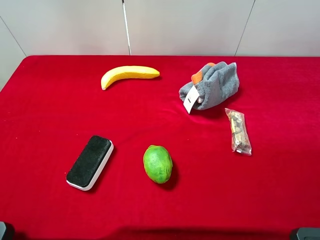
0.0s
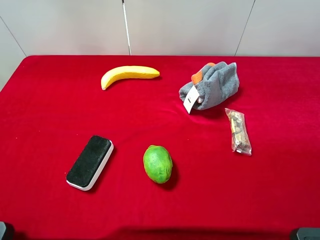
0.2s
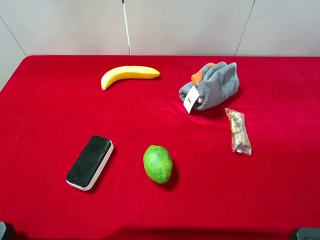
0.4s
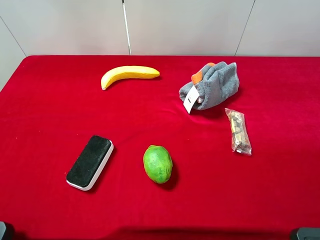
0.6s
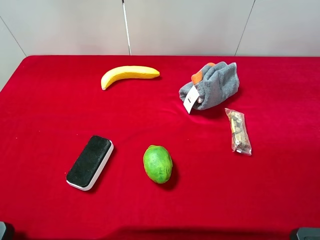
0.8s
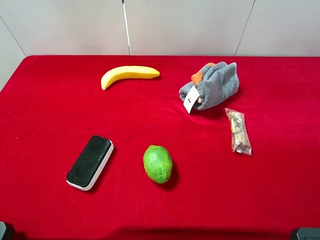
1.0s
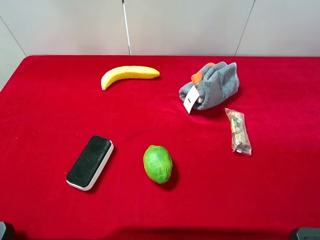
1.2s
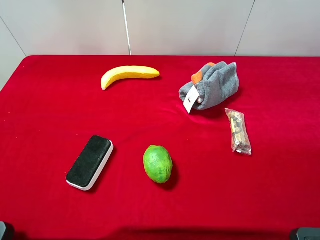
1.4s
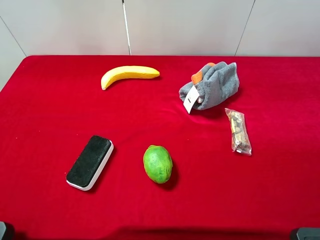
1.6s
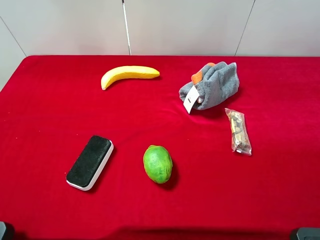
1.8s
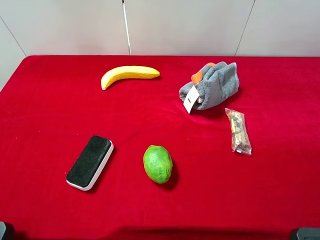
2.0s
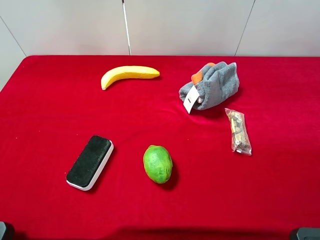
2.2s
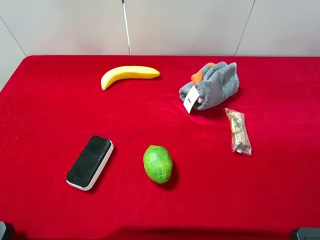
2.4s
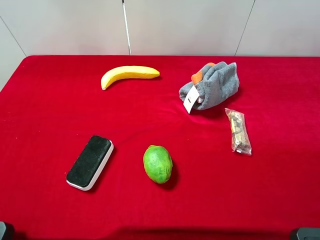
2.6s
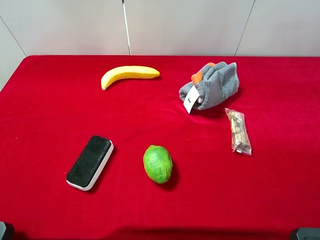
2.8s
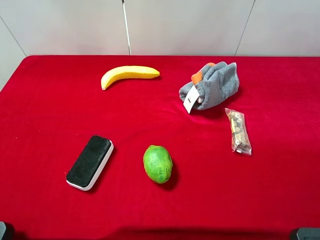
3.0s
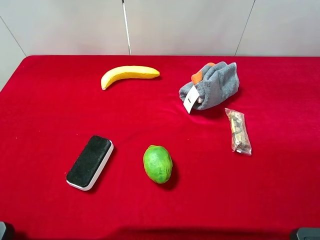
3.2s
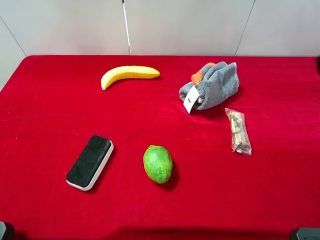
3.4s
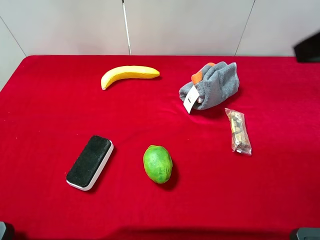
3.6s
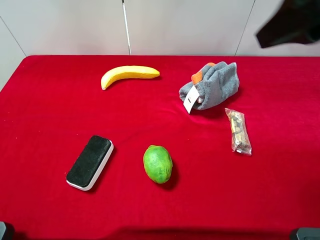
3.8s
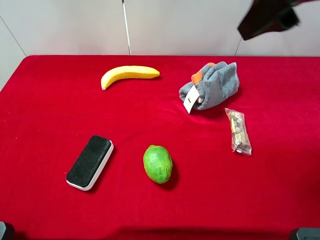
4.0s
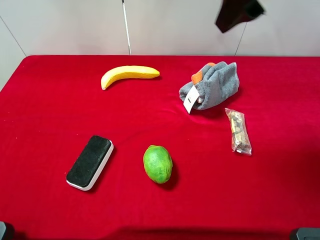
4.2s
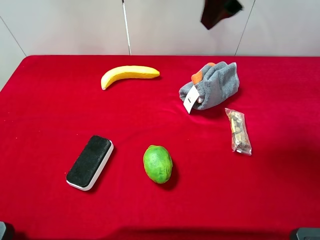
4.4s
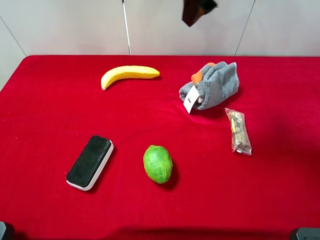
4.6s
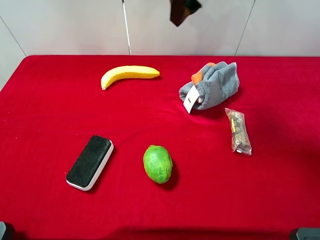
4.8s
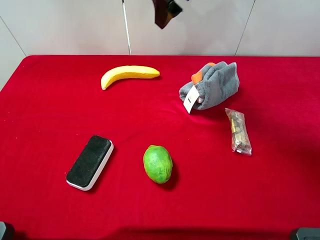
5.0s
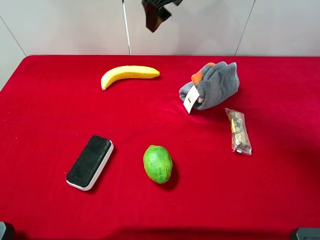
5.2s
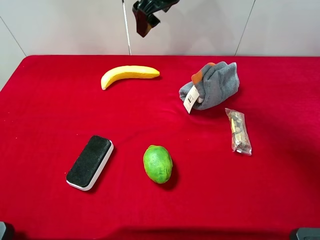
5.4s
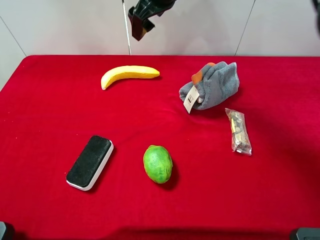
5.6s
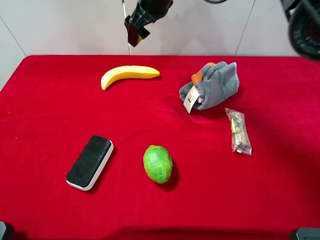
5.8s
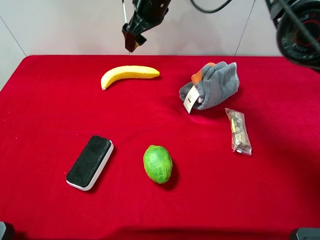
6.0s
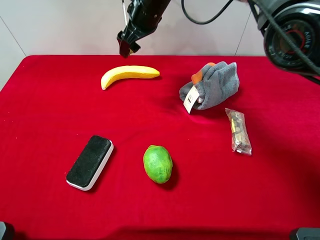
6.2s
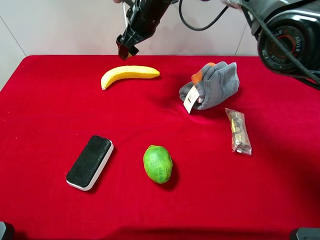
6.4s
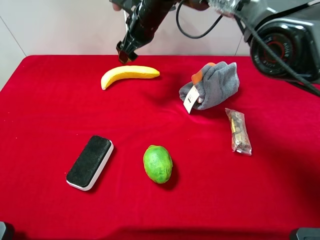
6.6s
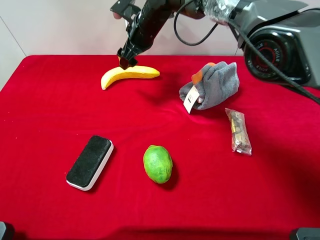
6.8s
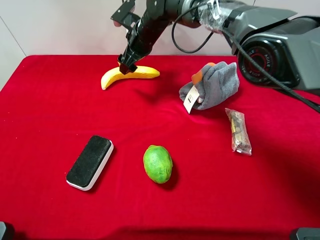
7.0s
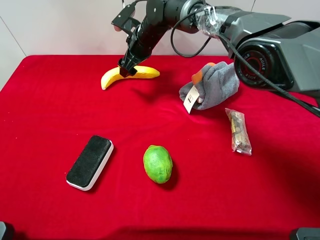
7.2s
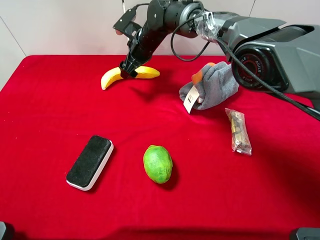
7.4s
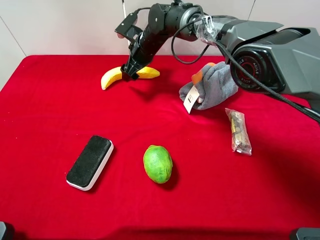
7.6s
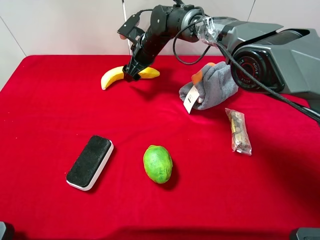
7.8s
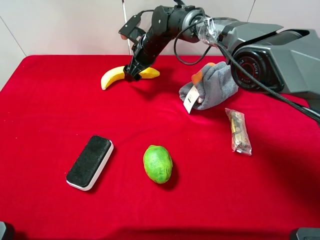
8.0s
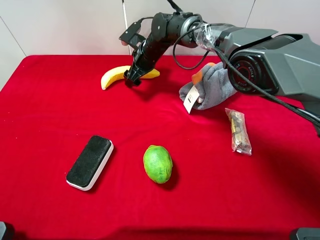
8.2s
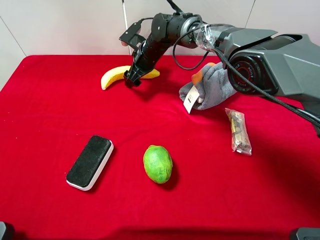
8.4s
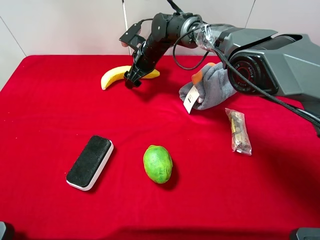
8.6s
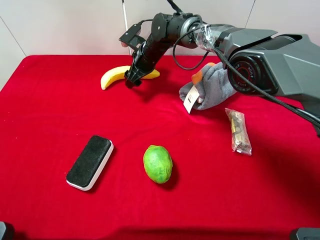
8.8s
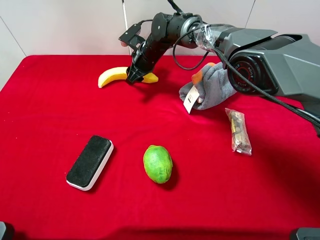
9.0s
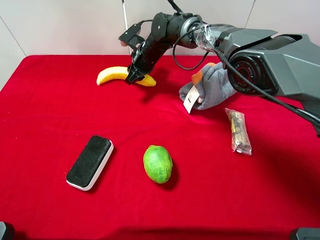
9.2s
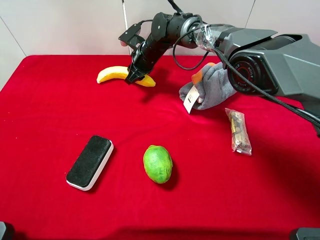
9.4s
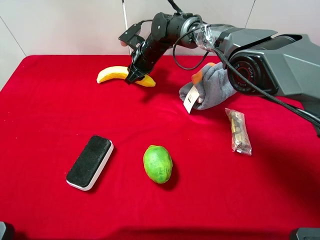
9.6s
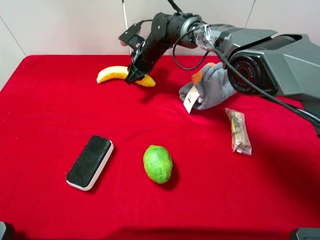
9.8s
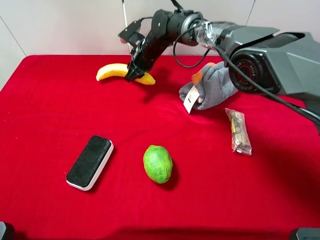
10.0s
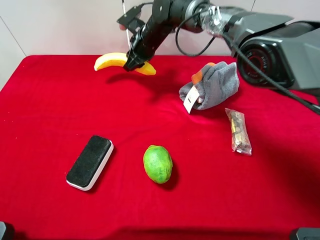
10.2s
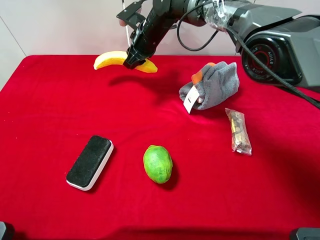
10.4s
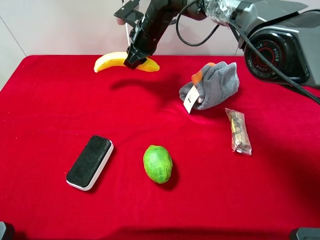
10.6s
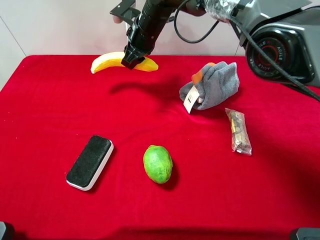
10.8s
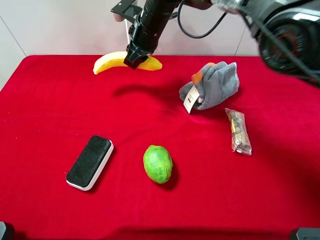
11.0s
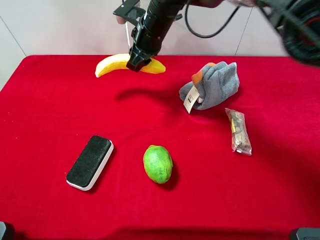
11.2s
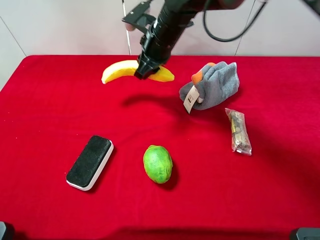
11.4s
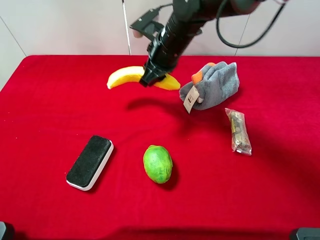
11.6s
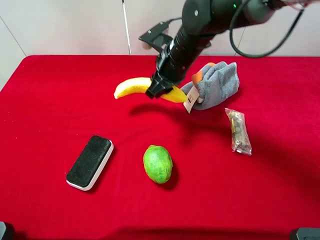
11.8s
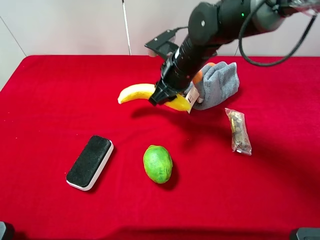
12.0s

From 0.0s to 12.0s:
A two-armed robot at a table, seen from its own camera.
Task of the whole recording: the gripper move the object.
Step, from 0.0s to 9.4s: Grasp the banana with the right gripper.
From 0.0s to 1.6s: Neither gripper changes place.
From 3.0s to 4.4s: The right gripper goes approximately 25 cm forward and to the left.
From 4.4s to 6.0s: The right gripper goes approximately 25 cm forward, to the left and downward.
From 6.0s to 7.6s: The right gripper goes roughly 15 cm downward.
From 7.6s to 9.0s: The right gripper closes up.
From 9.0s to 10.4s: The right gripper is displaced upward by approximately 5 cm.
From 10.4s to 12.0s: The right gripper goes about 15 cm backward and to the right.

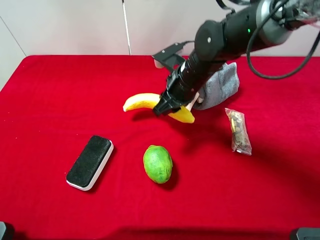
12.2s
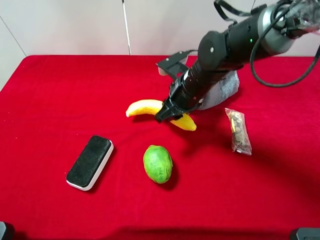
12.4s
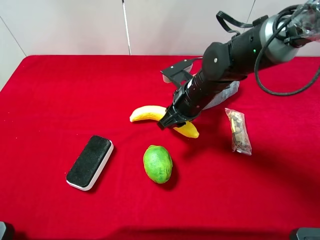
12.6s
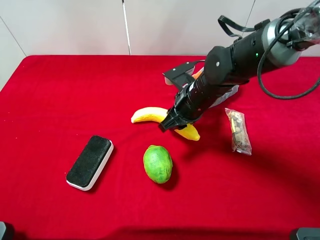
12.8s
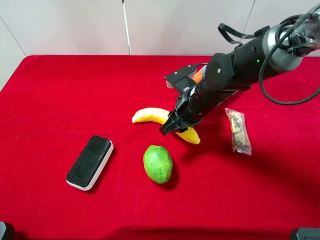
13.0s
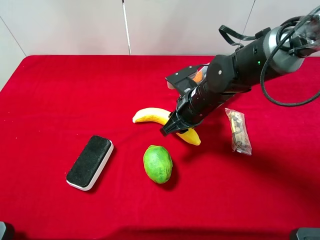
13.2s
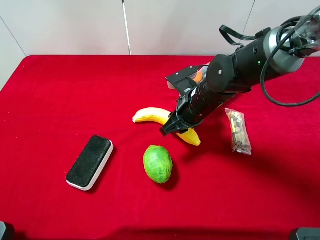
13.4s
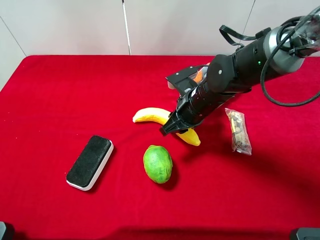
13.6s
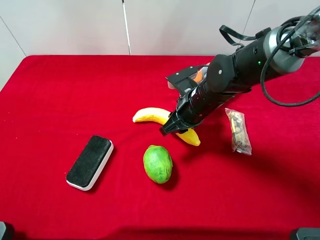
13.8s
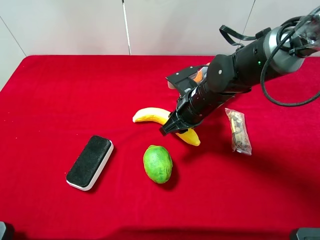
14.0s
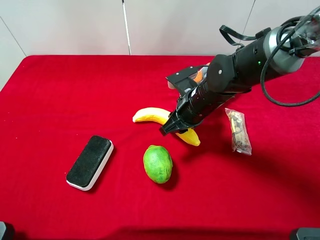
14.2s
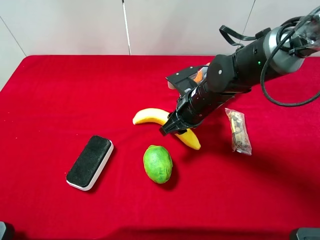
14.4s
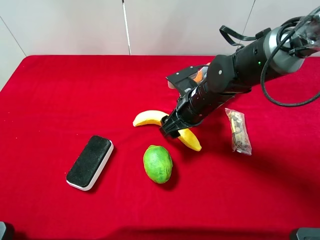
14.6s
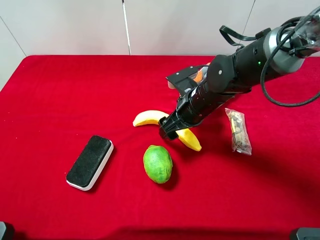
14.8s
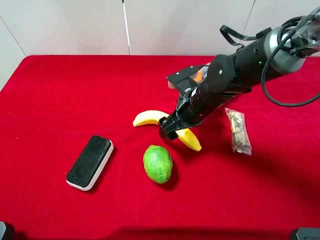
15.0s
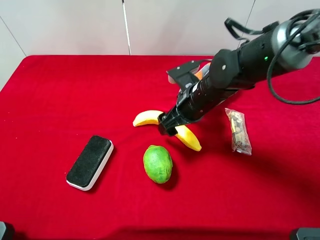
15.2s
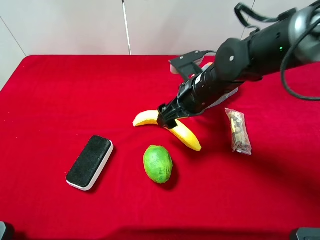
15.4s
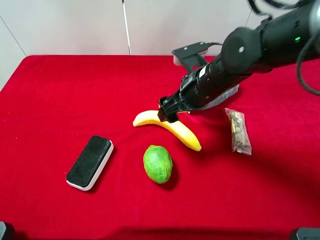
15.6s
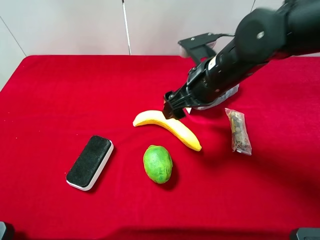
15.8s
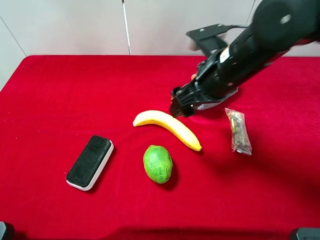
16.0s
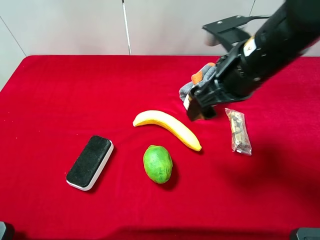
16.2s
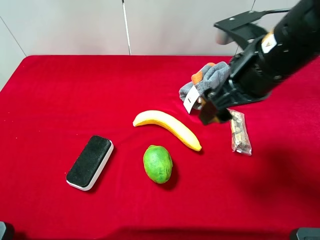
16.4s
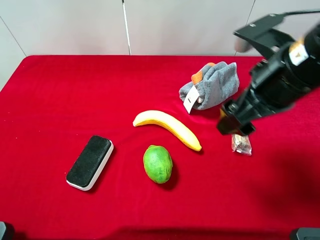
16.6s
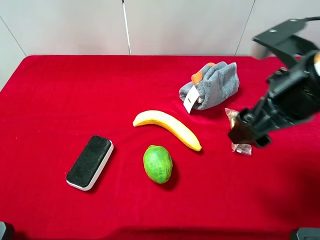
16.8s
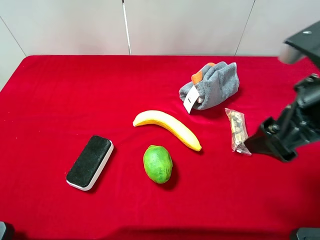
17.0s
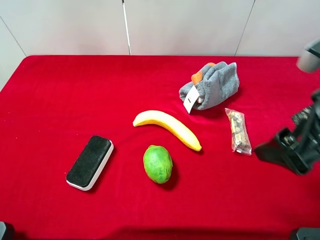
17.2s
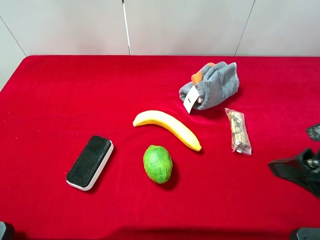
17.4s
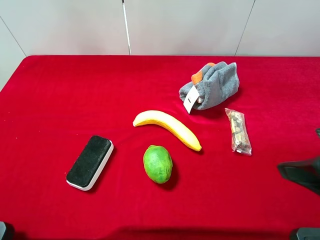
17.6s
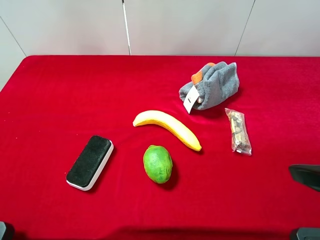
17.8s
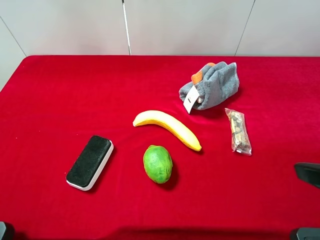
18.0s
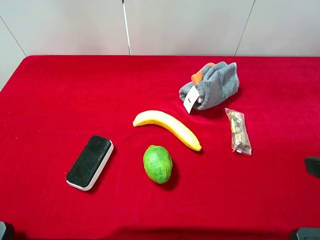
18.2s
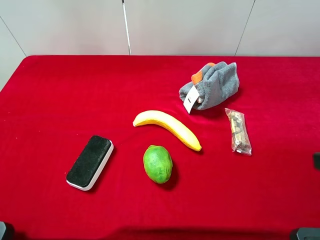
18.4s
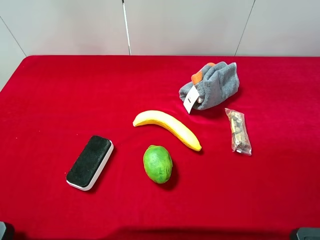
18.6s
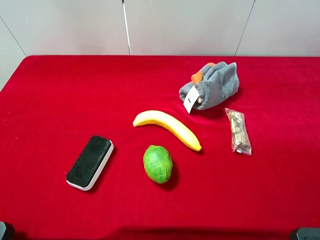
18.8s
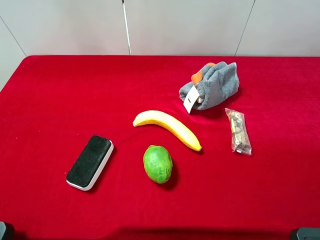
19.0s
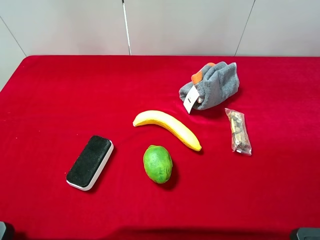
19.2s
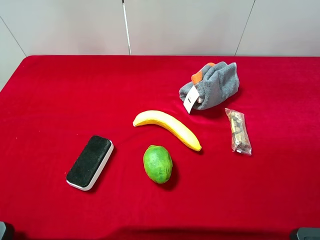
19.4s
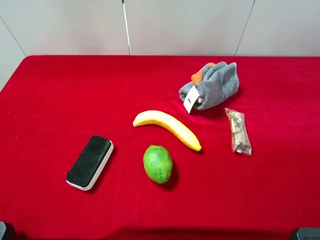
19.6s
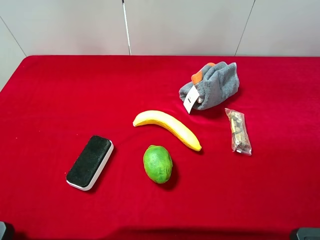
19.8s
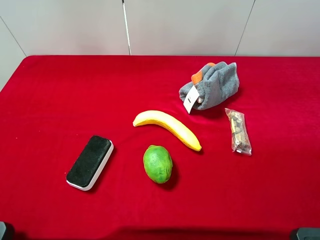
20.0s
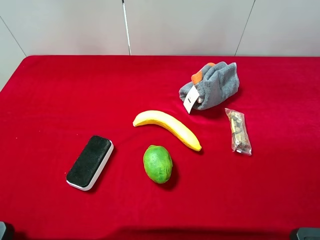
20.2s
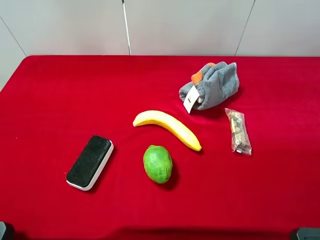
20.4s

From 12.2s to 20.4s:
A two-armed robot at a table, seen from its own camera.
Task of the whole recording: the gripper move the object.
Step, from 12.2s to 15.6s: Place the banana on the table with the right gripper.
From 12.2s to 13.8s: The right gripper moves roughly 5 cm.
From 13.8s to 15.4s: The right gripper opens its fingers.
From 15.4s to 17.2s: The right gripper travels backward, upward and to the right by about 25 cm.
From 17.2s to 18.8s: The right gripper is displaced backward and to the right by some 15 cm.

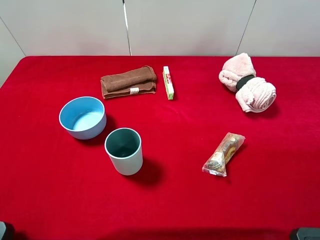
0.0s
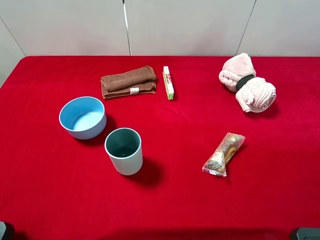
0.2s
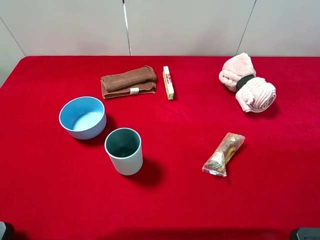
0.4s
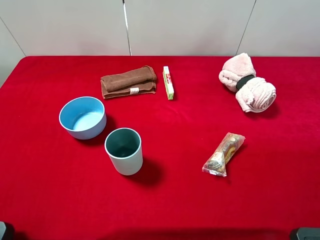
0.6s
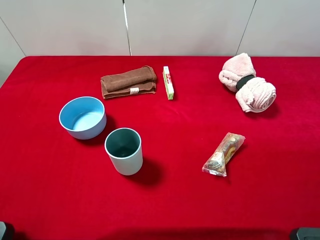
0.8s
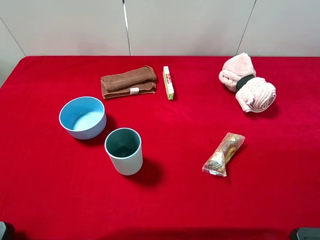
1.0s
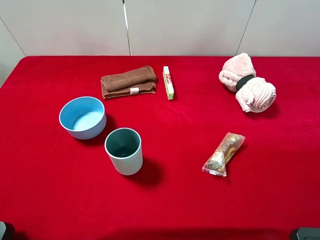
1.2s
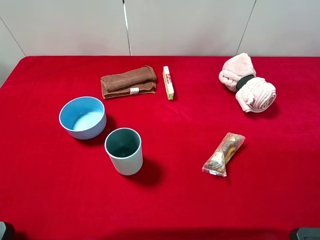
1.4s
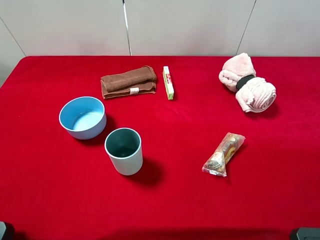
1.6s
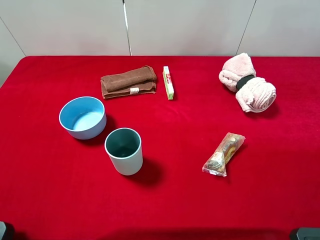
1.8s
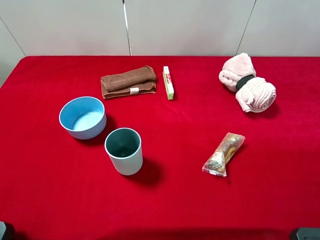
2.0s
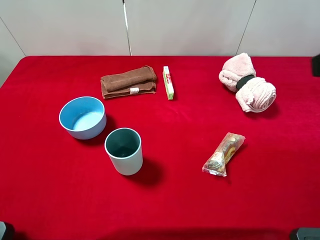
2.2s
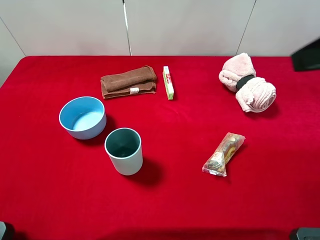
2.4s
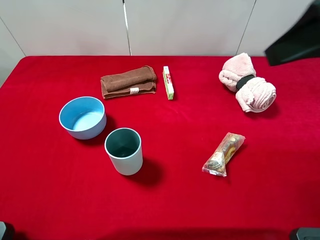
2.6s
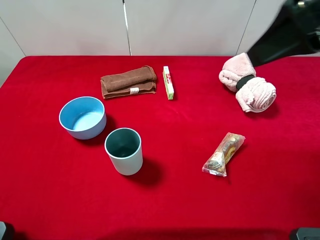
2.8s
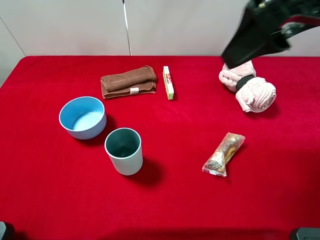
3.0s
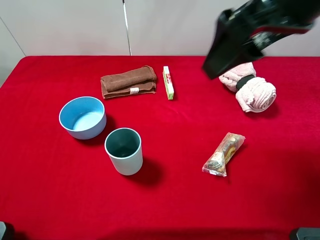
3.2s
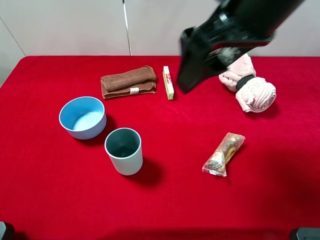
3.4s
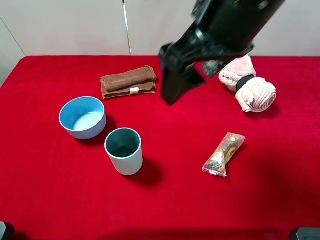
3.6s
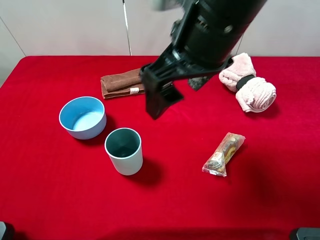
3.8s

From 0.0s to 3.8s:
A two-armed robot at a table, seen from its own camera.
Task of the whole recording: the gripper move the object.
From 0.0s to 1.2s: Both grippers stay put.
From 1.2s to 2.6s: The right gripper moves forward, upward and to the left, approximately 20 cm.
From 2.6s to 3.8s: The right gripper moves to the left, roughly 15 cm.
